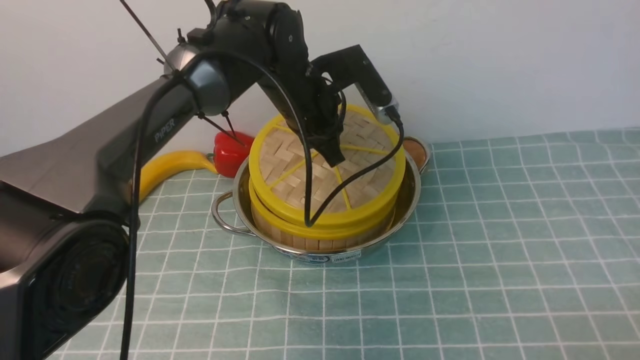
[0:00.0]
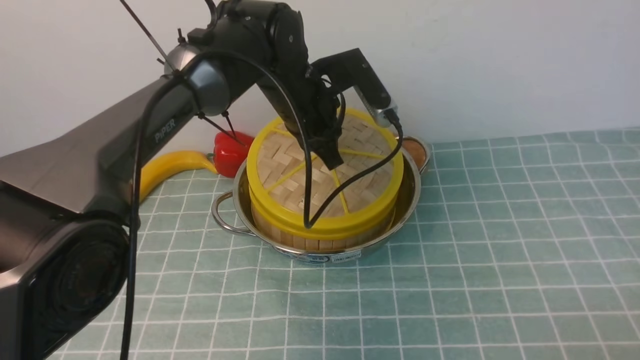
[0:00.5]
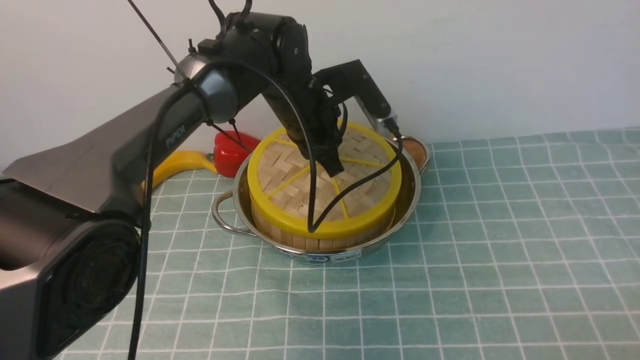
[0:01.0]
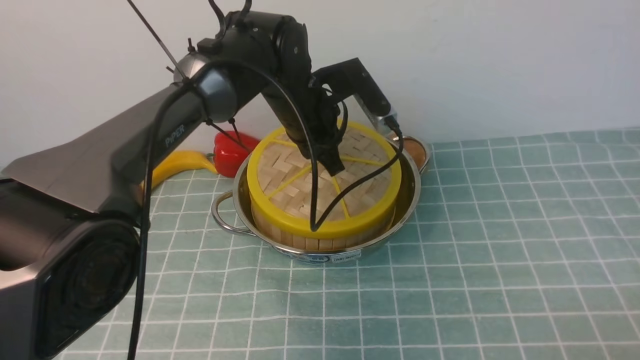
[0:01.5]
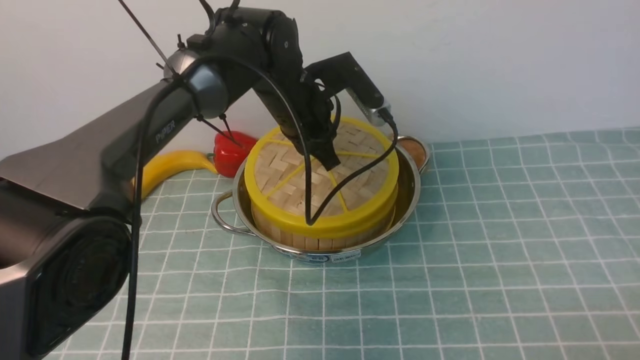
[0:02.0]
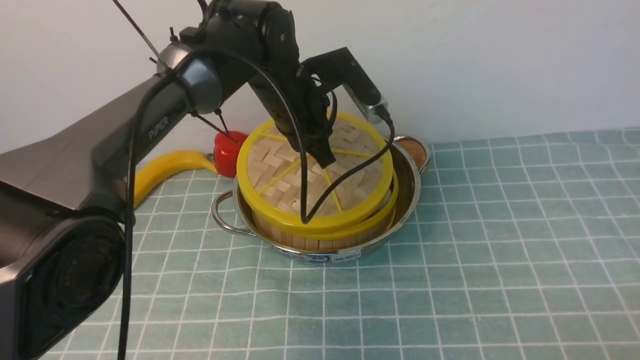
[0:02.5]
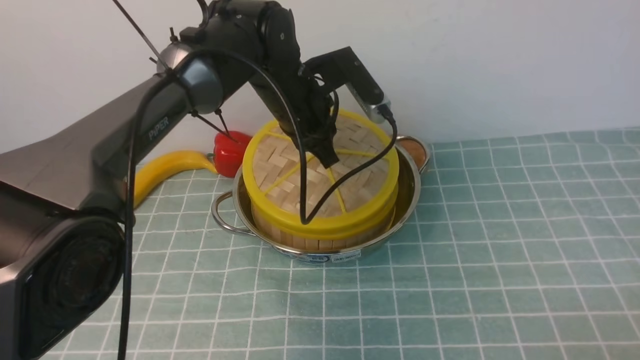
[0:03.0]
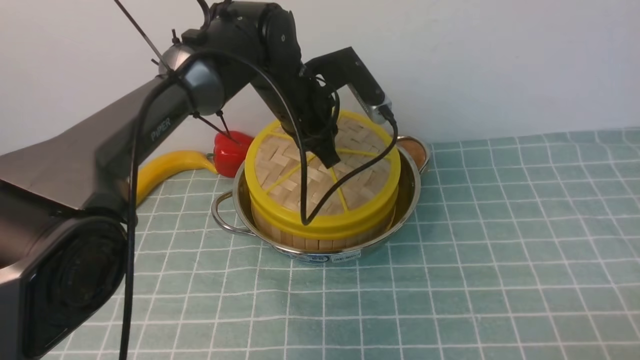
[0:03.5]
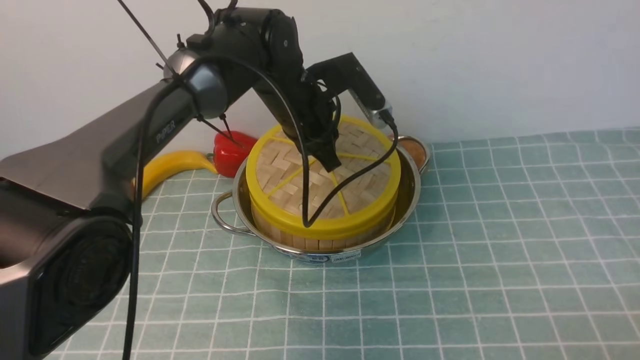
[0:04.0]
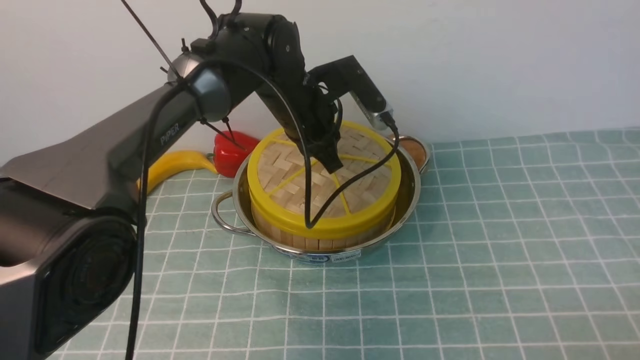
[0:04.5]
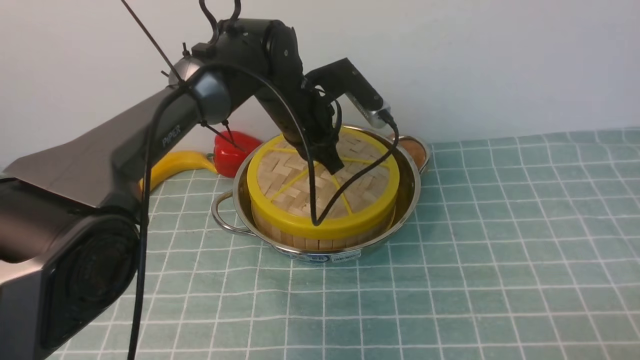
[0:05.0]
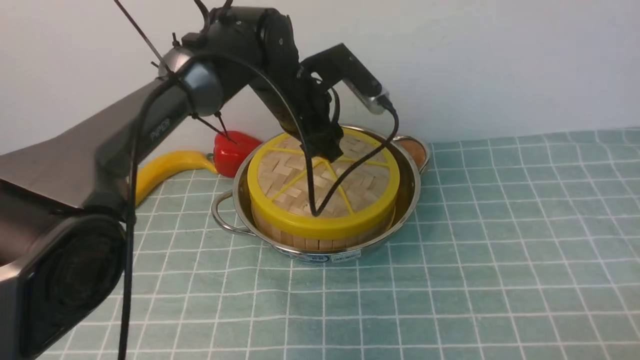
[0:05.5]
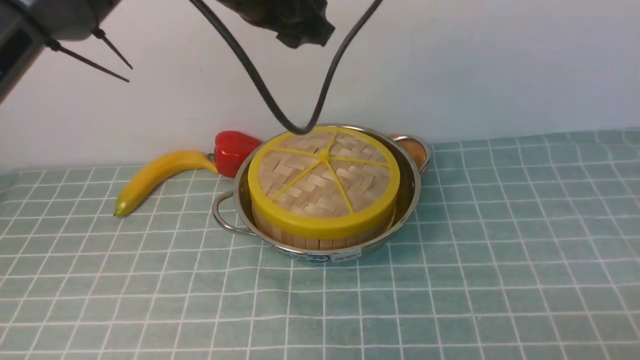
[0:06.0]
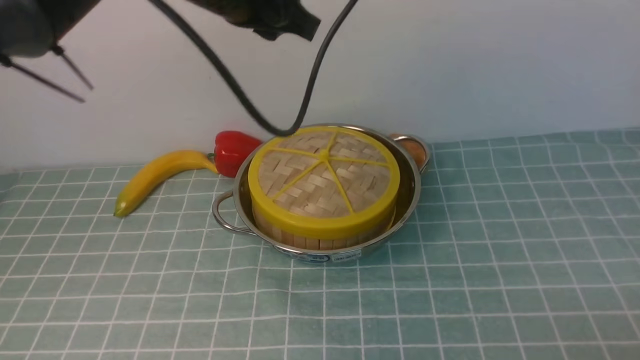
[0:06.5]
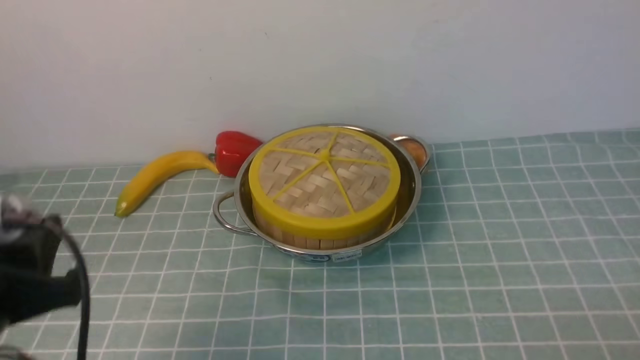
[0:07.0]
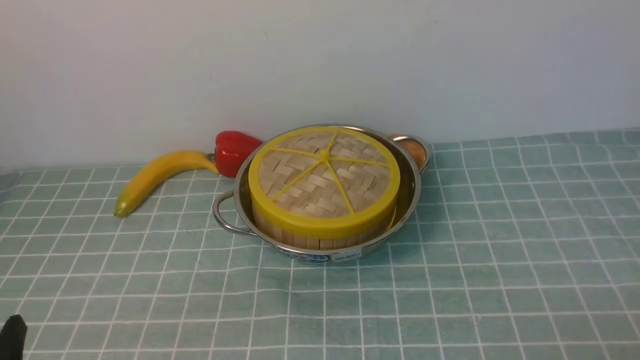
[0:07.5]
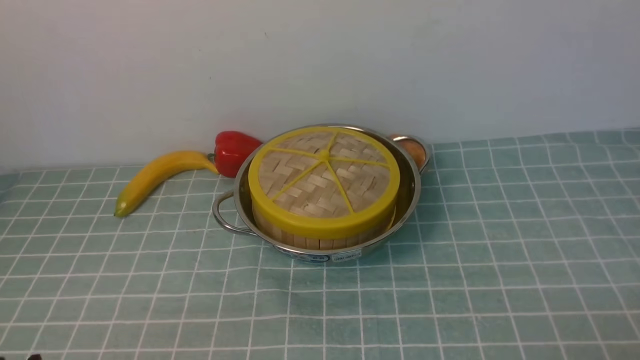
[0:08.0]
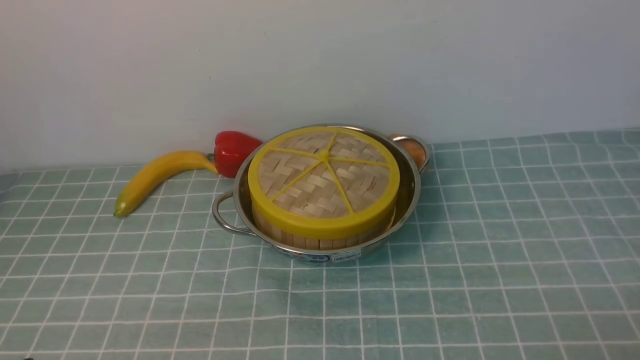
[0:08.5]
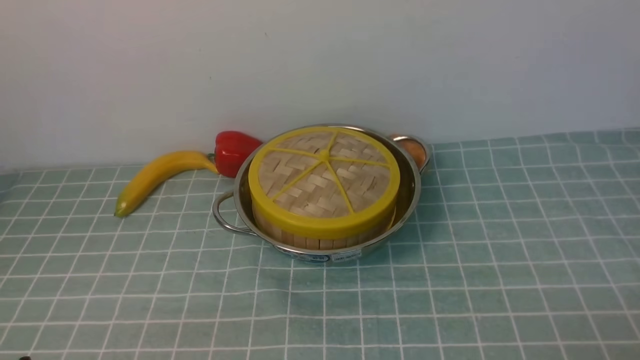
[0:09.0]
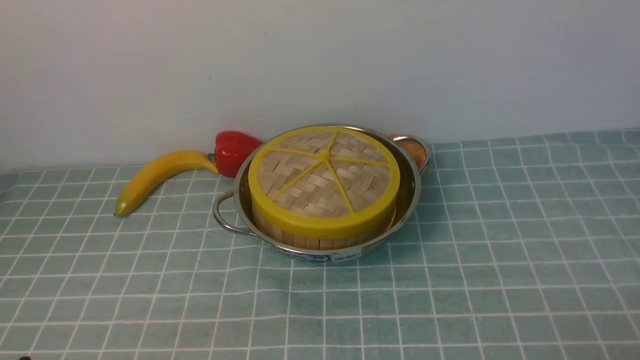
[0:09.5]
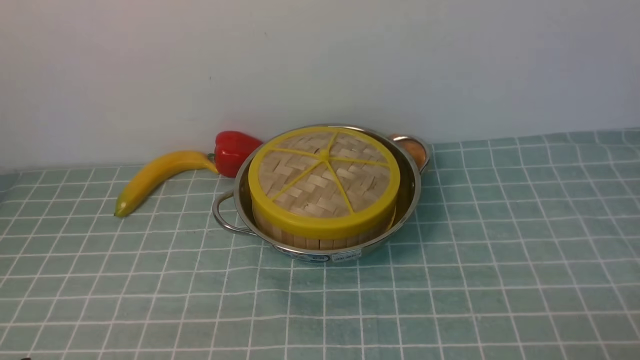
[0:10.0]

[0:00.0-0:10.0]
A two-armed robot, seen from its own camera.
Task of the whole recording: place the steamer in the pot on the blue tablecloth, and put the lid on the steamer.
Step, 0:00.0 to 0:06.0: use the left arm to place the steamer lid on the steamer.
0:00.0 to 0:02.0: The grippers stay close to where they were, moving slightly.
0:02.0 to 0:04.0: Both grippers stay put.
0:04.0 to 0:06.0: The left gripper shifts approximately 15 cm upward, and opens.
0:06.0 to 0:08.0: The left gripper is displaced backward, downward and to the left by some 40 cm, and closes.
0:08.0 to 0:10.0: The two grippers keep their place.

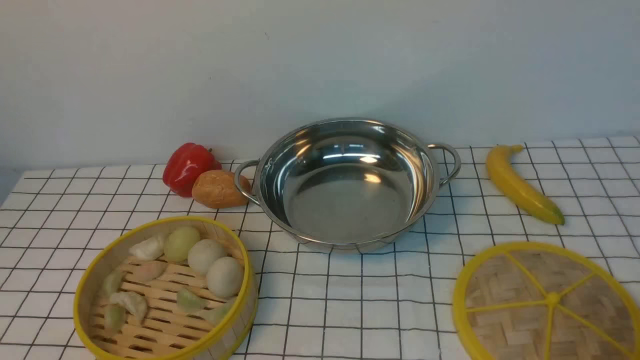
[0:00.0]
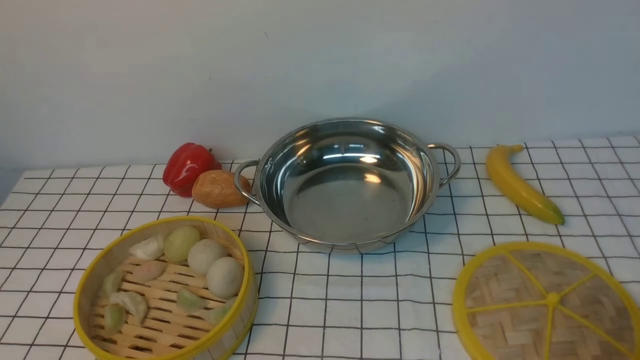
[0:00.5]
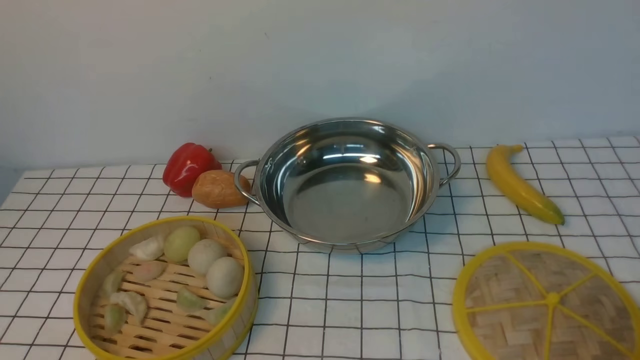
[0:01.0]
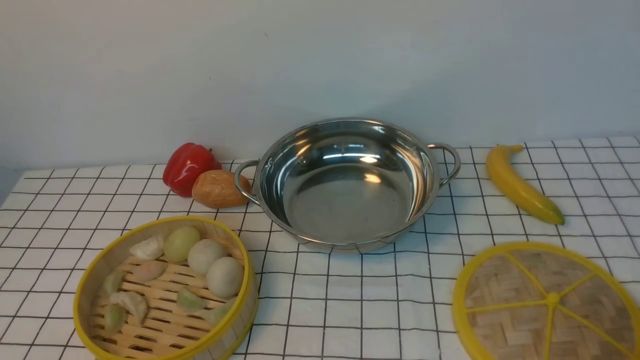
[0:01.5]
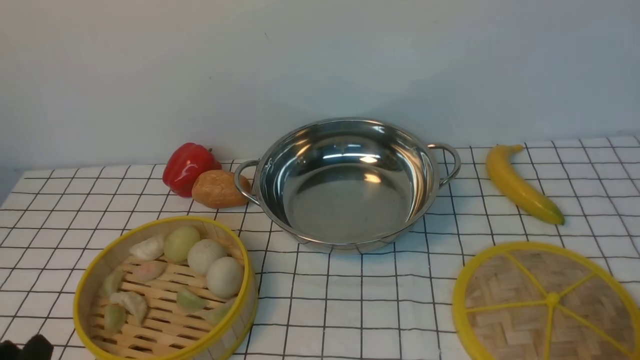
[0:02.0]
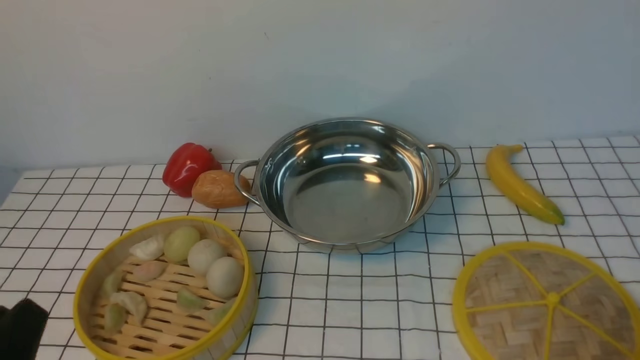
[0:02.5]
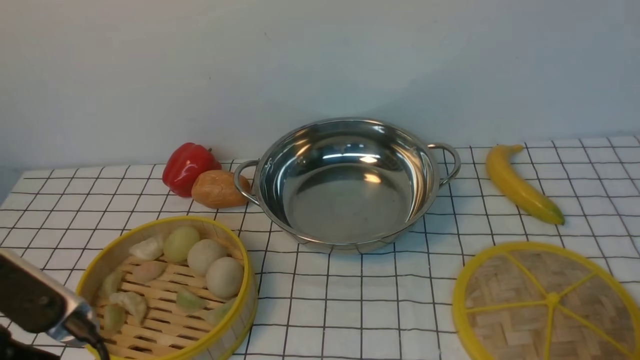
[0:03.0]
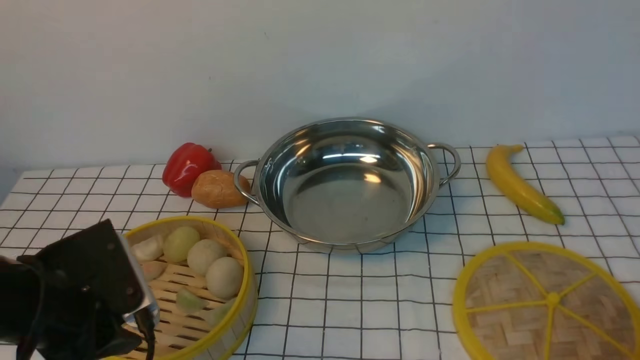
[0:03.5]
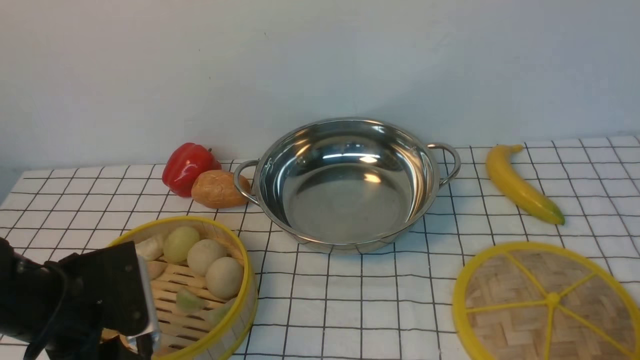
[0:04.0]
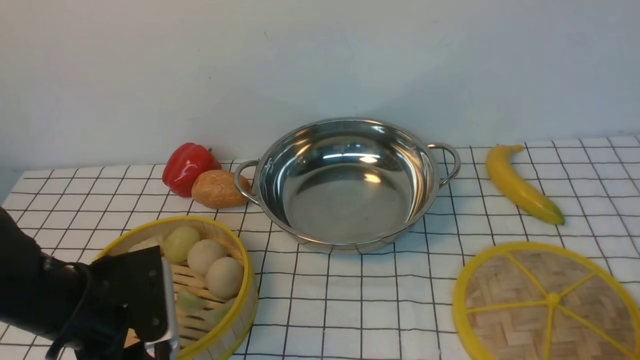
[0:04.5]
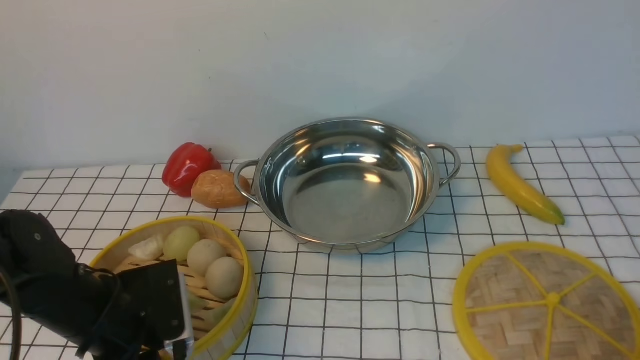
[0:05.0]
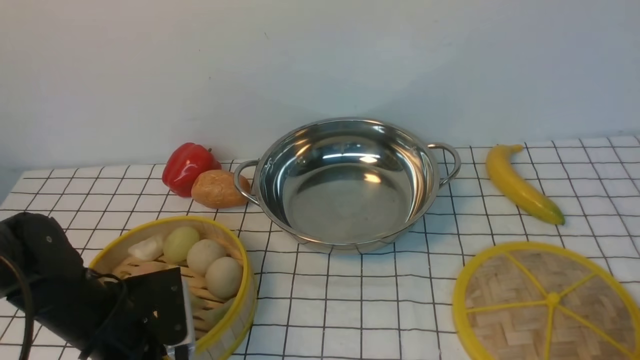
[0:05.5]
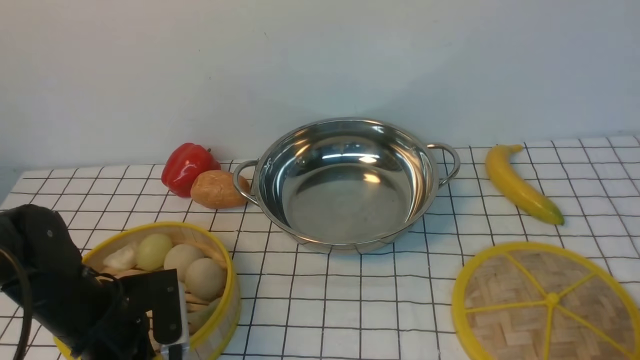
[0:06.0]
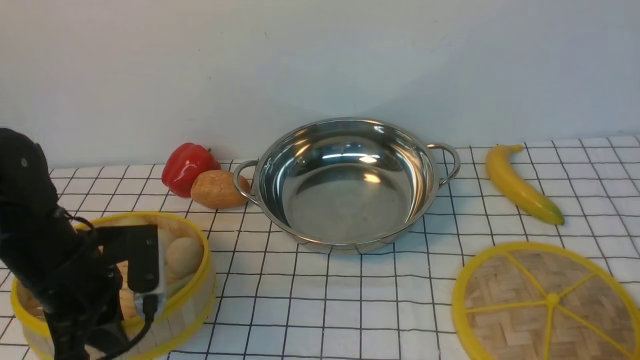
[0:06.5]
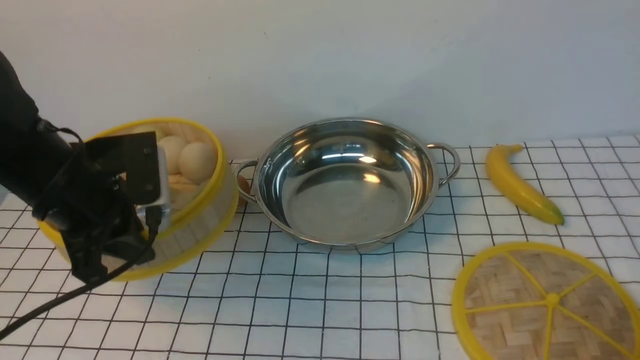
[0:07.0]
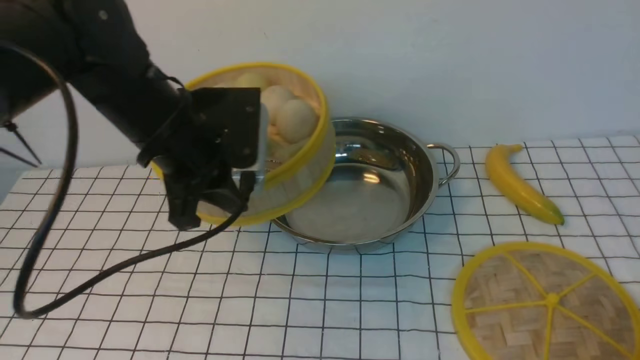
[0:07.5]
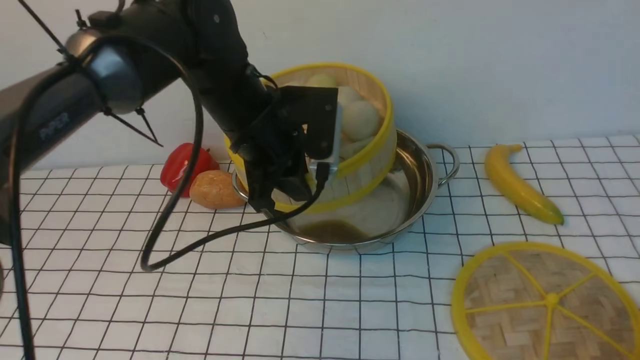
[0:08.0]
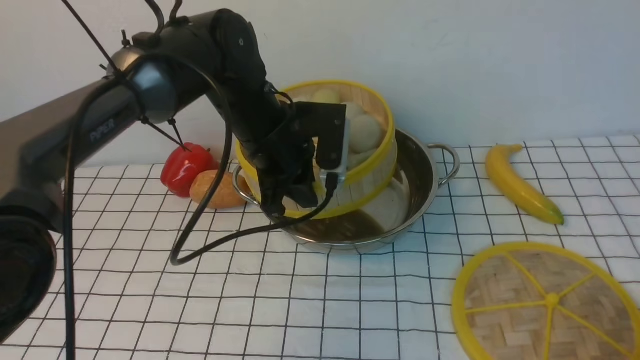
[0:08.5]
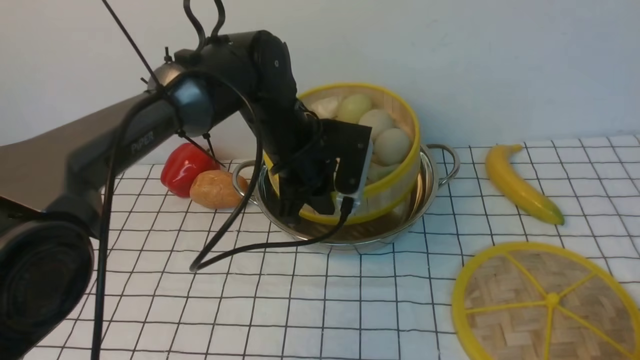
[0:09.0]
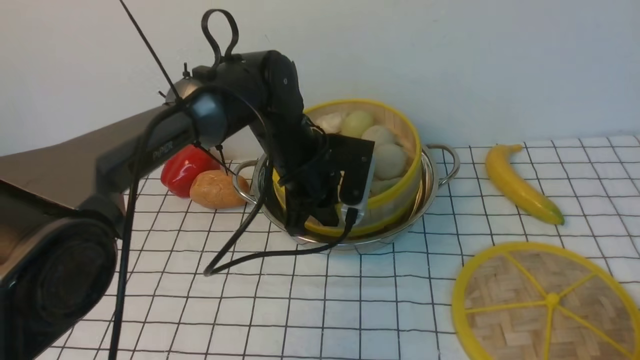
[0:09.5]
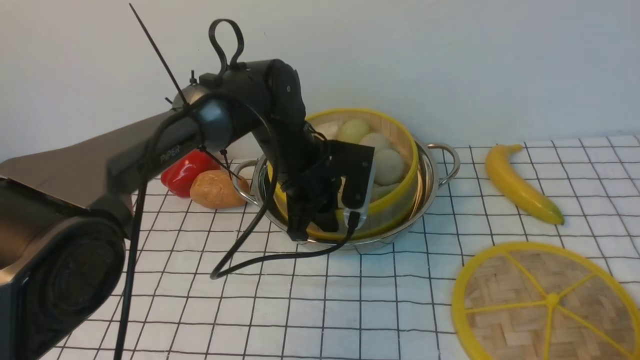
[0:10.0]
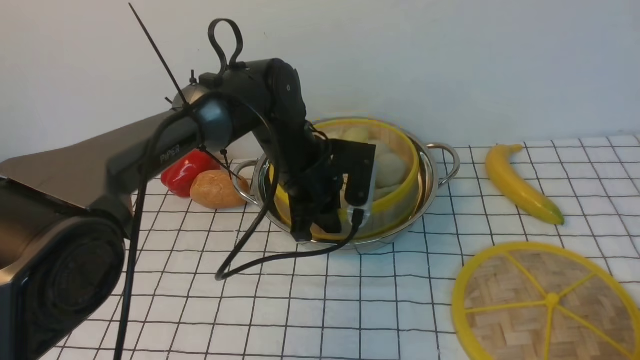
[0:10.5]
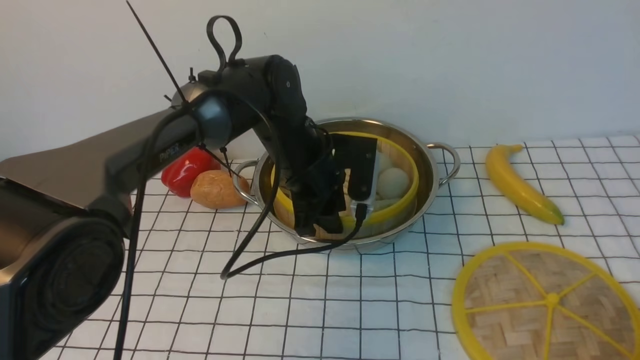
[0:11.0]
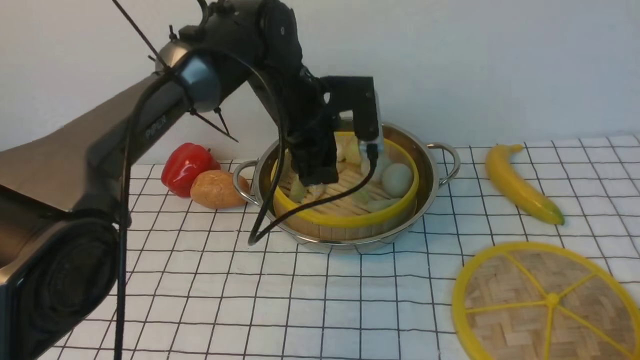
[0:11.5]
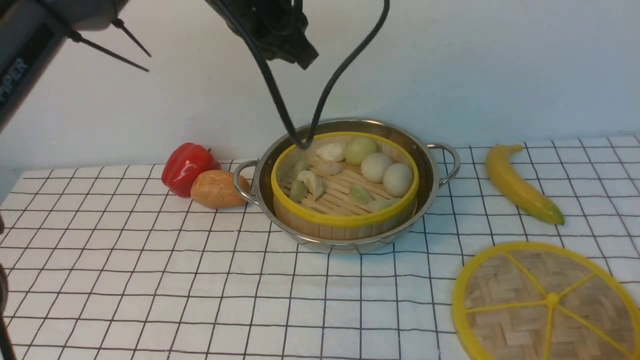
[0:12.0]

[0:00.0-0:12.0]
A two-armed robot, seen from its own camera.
Task of the whole recording: place the steamer in the pot on the white tablecloth, and put the lid on the steamer.
Step, 0:00.0 to 0:06.0: use the left arm to lift the steamer closest to it.
Step, 0:07.0 to 0:11.0: use the left arm to put the steamer into the iron steamer pot in the middle.
0:02.0 to 0:04.0: The left gripper is displaced forward by roughly 15 cm, and opens its fingers.
0:04.0 to 0:06.0: The left gripper shifts by about 5 cm, and closes up.
0:06.0 to 0:08.0: The left gripper moves to the right, forward and upward, about 25 cm.
0:08.0 to 0:10.0: The left gripper heads downward, covering some 10 cm.
0:10.0 to 0:12.0: The left gripper shifts approximately 20 cm upward, and opens.
